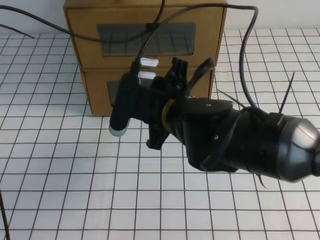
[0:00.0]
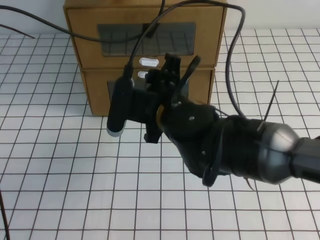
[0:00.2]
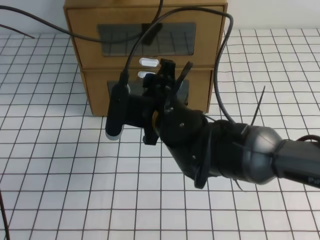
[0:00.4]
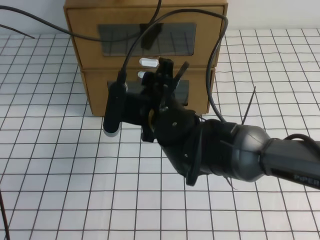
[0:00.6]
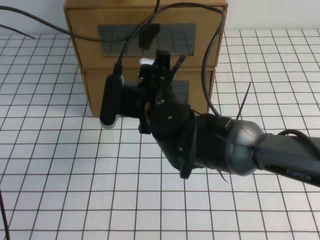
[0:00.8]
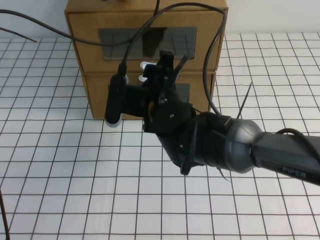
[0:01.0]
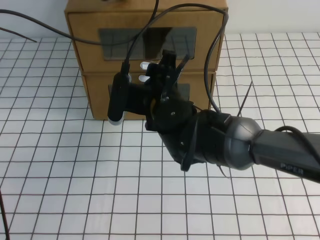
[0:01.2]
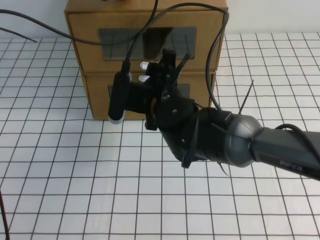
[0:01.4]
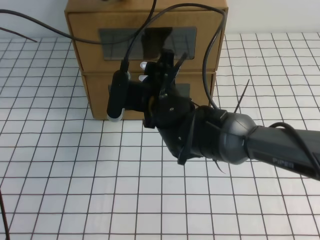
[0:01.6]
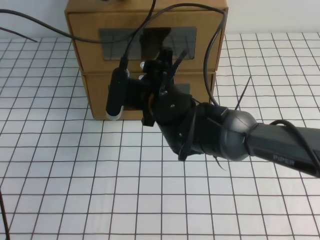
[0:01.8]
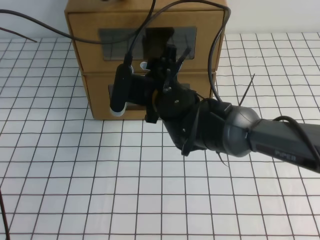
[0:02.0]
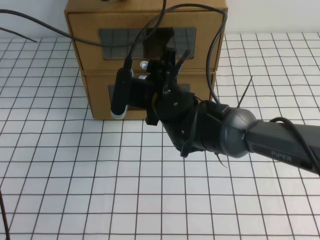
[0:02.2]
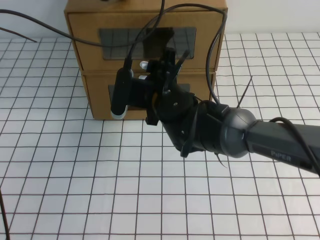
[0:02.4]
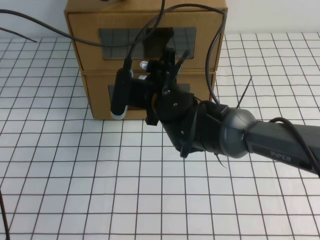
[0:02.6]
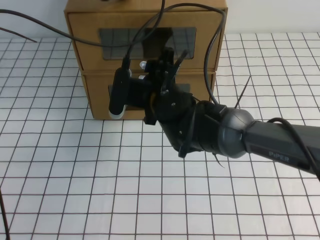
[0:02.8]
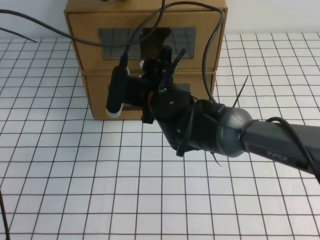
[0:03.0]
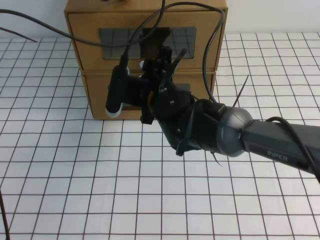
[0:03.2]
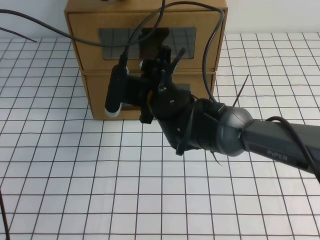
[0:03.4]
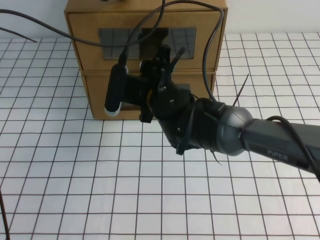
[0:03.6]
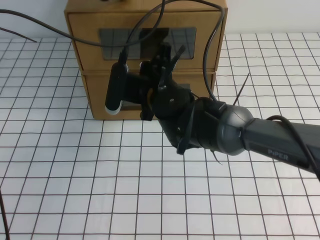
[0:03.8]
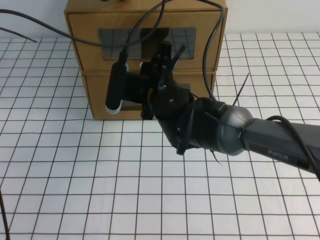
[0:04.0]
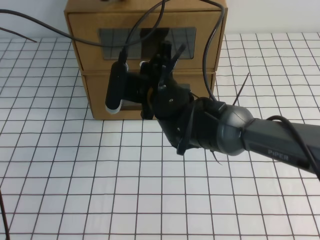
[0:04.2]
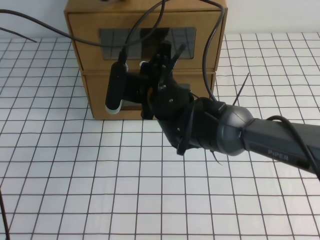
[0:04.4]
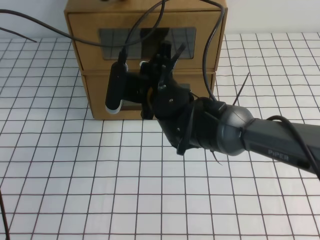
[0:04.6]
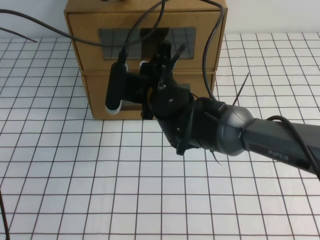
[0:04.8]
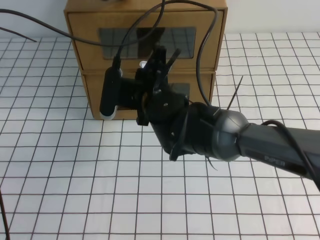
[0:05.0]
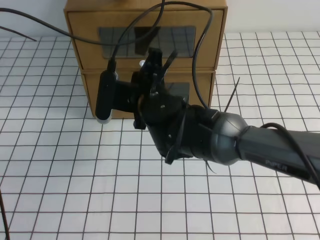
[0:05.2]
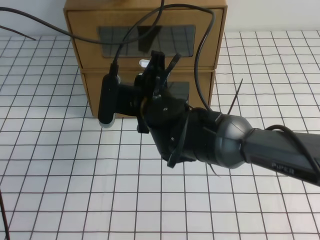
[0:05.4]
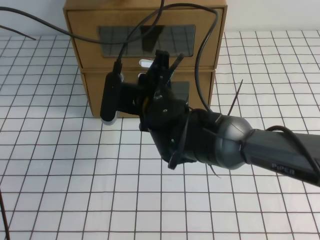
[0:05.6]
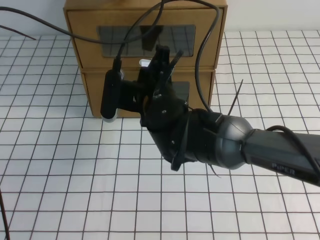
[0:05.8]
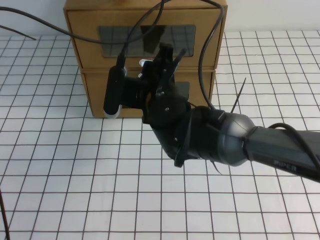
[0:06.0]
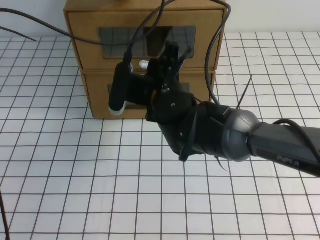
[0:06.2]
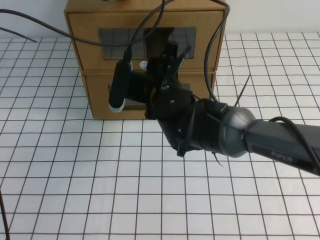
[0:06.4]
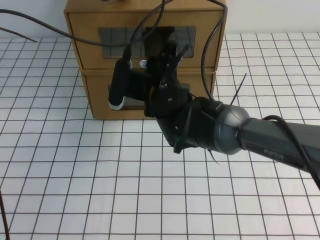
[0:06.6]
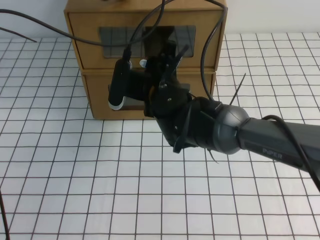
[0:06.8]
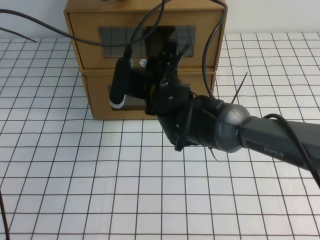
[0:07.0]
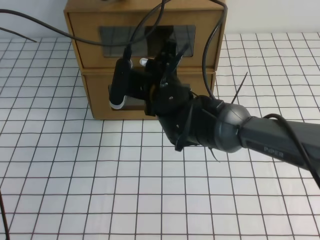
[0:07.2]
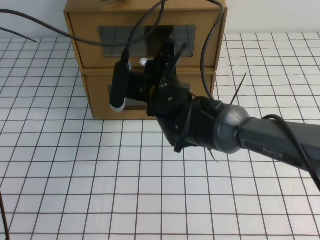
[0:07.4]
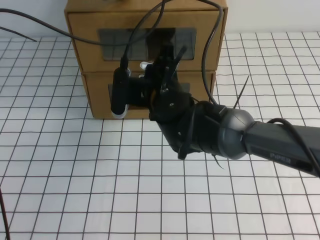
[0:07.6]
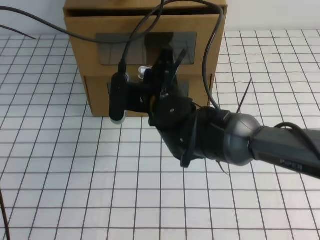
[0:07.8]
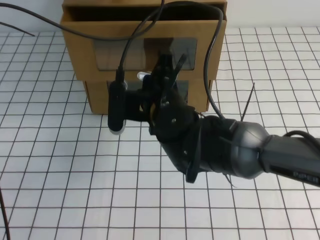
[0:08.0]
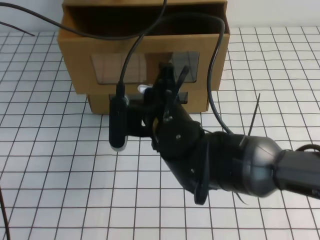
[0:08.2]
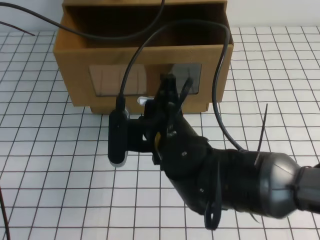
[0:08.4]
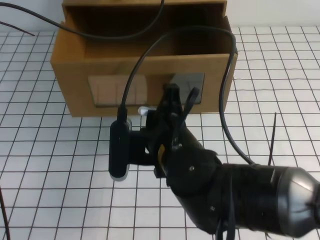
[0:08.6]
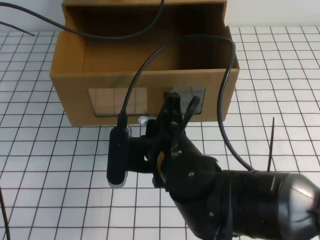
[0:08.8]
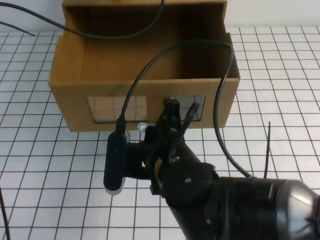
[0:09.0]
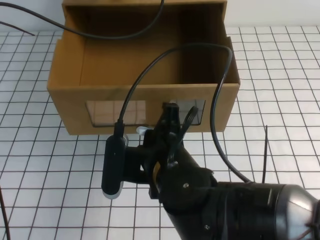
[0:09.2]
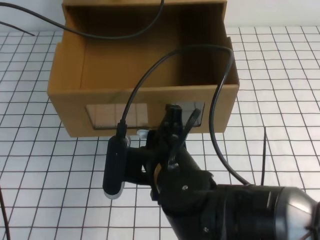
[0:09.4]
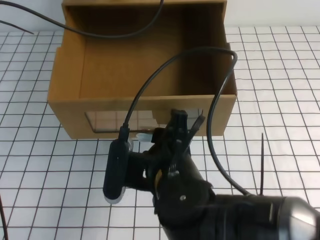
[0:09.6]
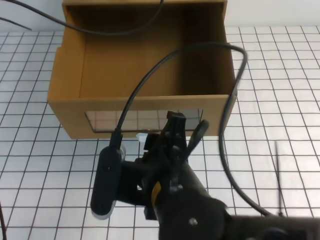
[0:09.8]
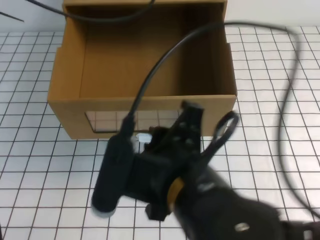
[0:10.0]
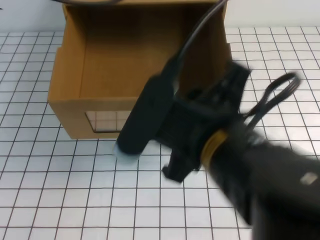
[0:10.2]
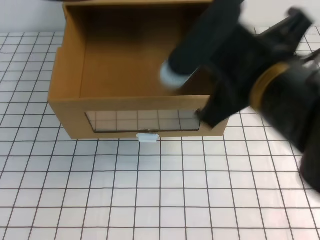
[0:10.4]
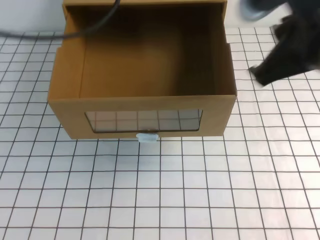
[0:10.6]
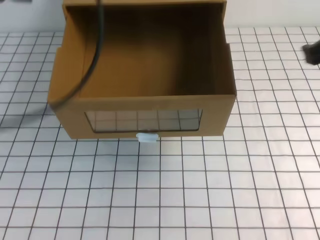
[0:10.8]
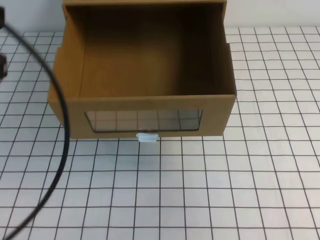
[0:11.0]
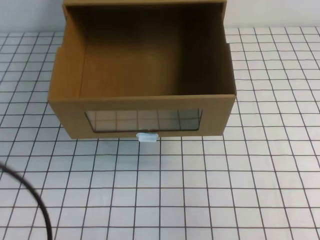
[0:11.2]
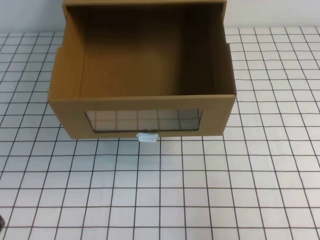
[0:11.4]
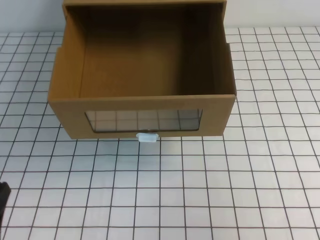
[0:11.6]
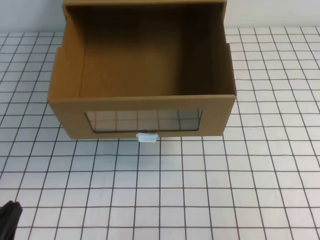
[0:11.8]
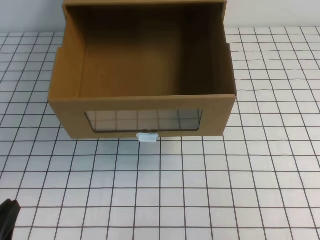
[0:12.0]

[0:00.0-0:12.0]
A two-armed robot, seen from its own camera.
Task of the whole recording: open the shoebox on the white tablecloth.
0:00.0 to 0:01.6: The right gripper is displaced forward by about 5 cm, and opens its fingers.
0:01.6 to 0:03.0: The grippers stay close to where they were, moving slightly.
0:03.0 to 0:04.4: The right gripper closes up.
0:04.4 to 0:06.0: The right gripper opens up.
0:06.0 to 0:07.6: The right gripper closes.
0:07.6 to 0:09.0: The right gripper is displaced backward by some 15 cm.
0:09.0 to 0:10.4: The right gripper is displaced upward and to the right by some 15 cm, and opens, then closes again. Meanwhile the left gripper travels upward and backward by about 15 cm.
0:10.4 to 0:12.0: The left gripper shifts some 40 cm downward and backward. The right gripper heads to the right and downward, covering some 20 cm.

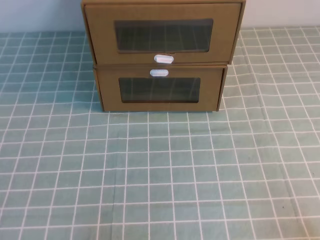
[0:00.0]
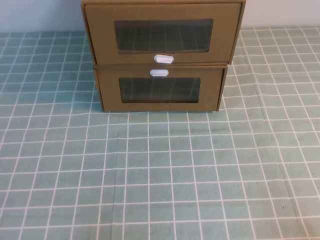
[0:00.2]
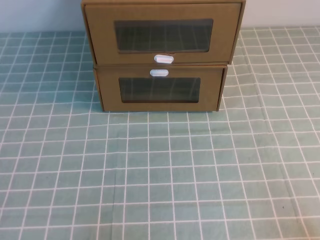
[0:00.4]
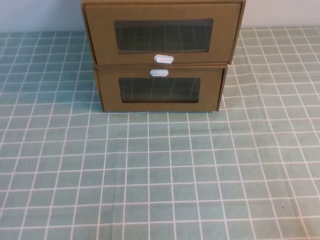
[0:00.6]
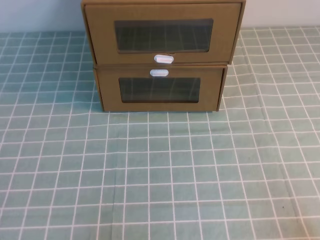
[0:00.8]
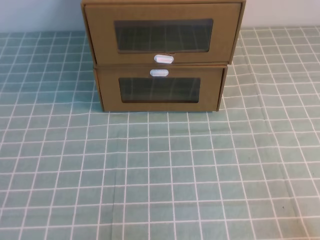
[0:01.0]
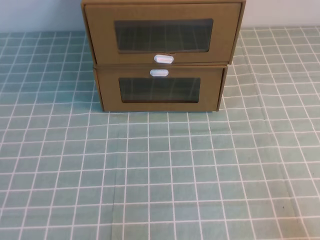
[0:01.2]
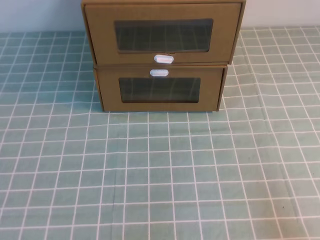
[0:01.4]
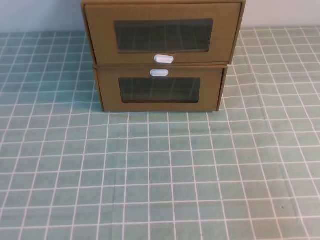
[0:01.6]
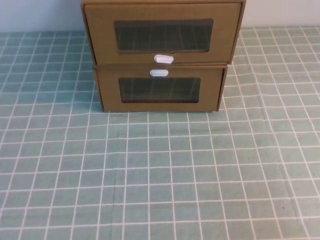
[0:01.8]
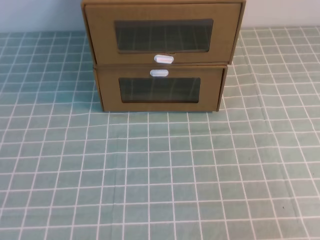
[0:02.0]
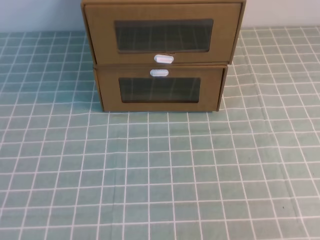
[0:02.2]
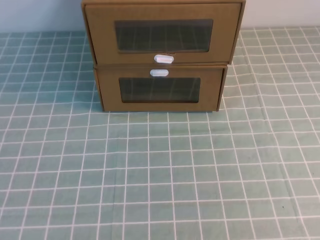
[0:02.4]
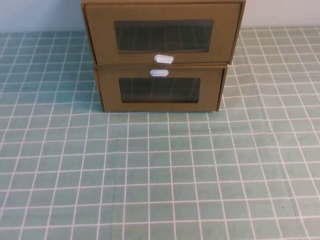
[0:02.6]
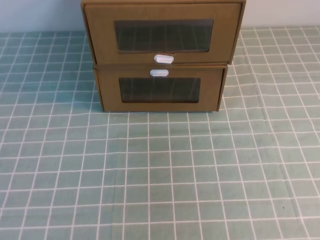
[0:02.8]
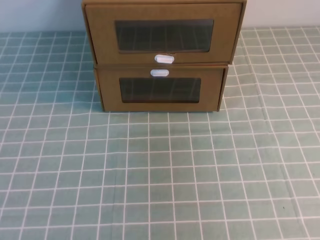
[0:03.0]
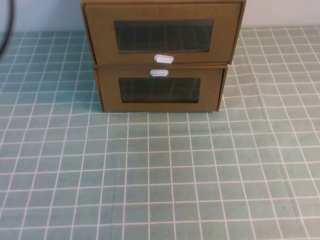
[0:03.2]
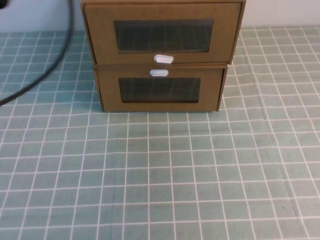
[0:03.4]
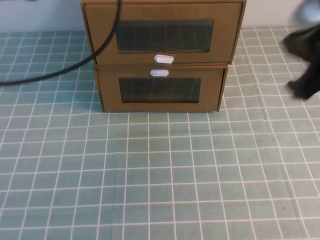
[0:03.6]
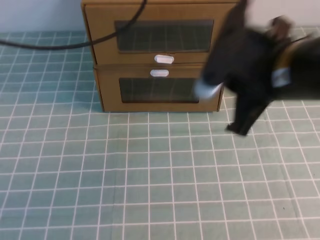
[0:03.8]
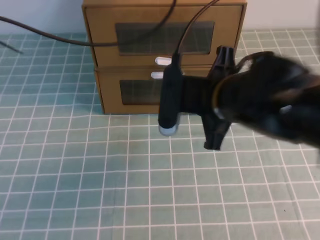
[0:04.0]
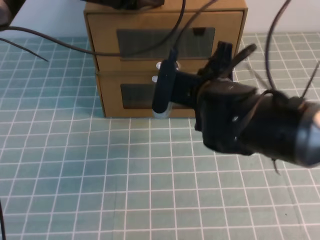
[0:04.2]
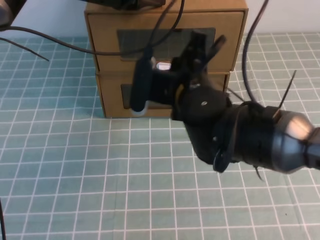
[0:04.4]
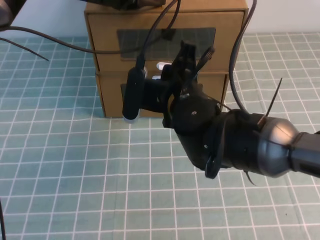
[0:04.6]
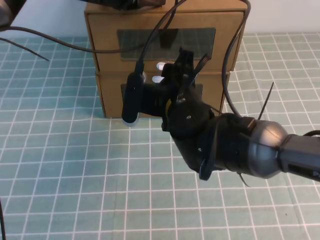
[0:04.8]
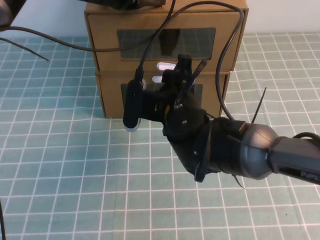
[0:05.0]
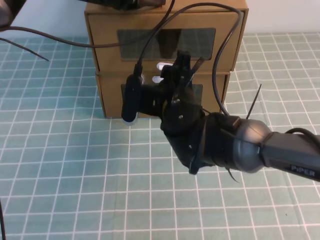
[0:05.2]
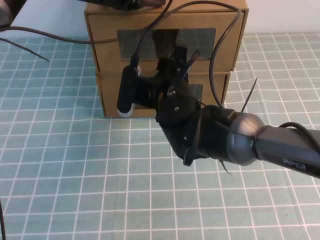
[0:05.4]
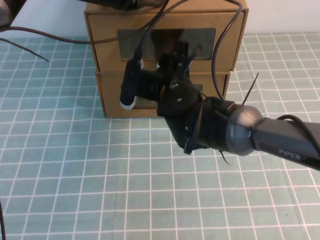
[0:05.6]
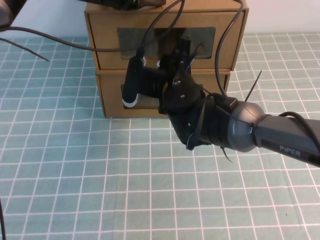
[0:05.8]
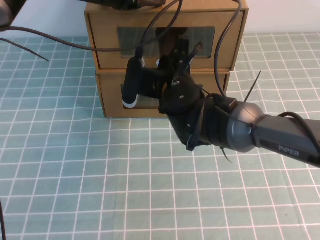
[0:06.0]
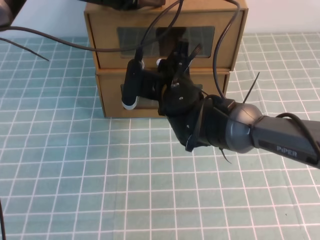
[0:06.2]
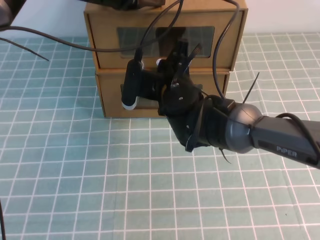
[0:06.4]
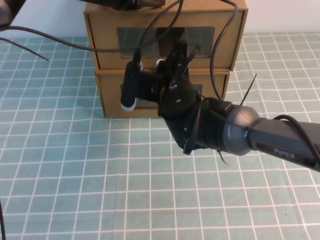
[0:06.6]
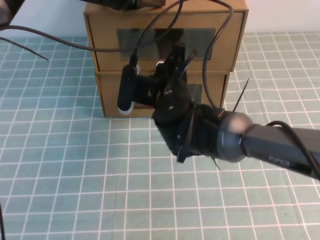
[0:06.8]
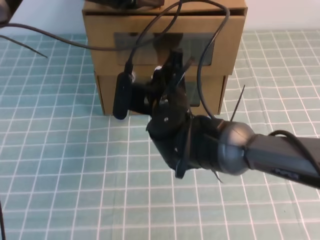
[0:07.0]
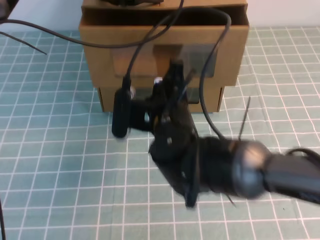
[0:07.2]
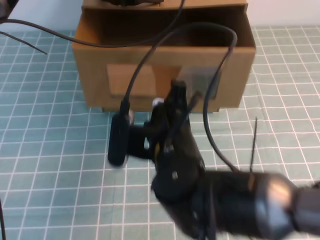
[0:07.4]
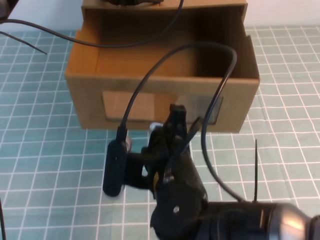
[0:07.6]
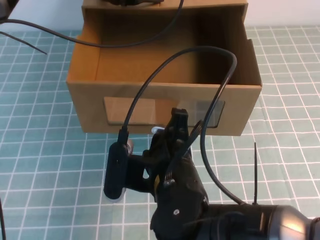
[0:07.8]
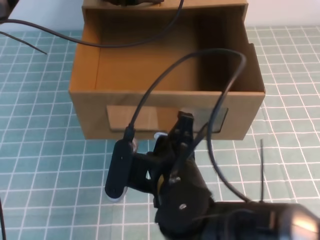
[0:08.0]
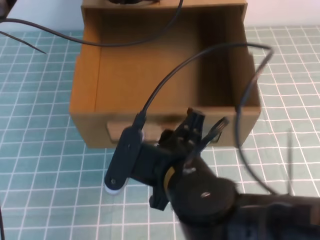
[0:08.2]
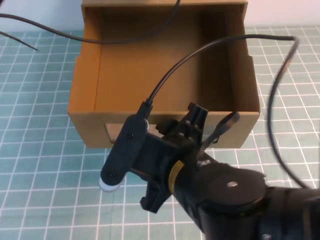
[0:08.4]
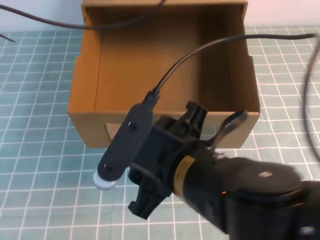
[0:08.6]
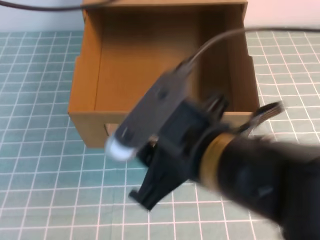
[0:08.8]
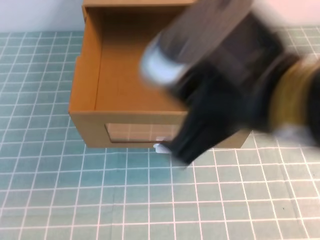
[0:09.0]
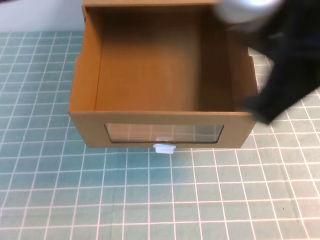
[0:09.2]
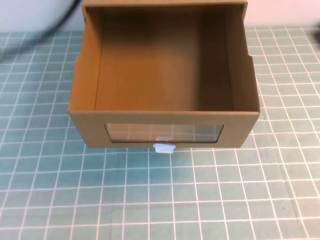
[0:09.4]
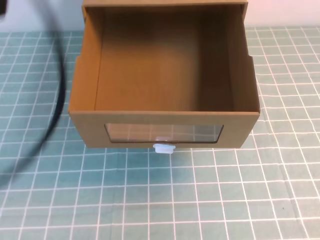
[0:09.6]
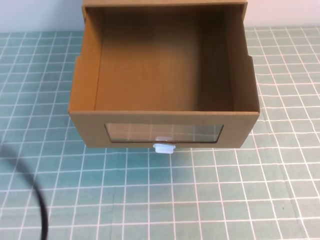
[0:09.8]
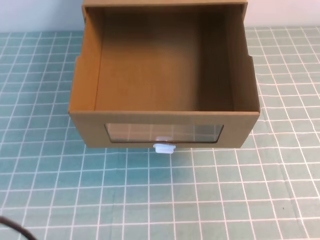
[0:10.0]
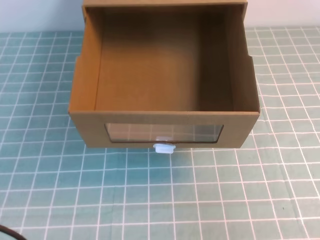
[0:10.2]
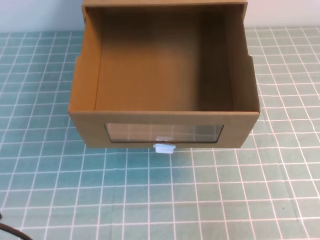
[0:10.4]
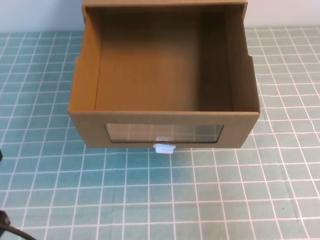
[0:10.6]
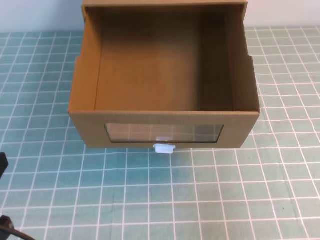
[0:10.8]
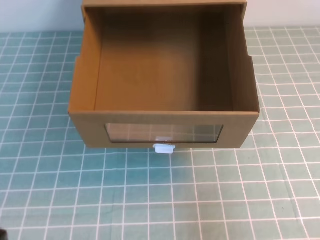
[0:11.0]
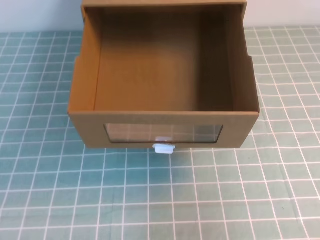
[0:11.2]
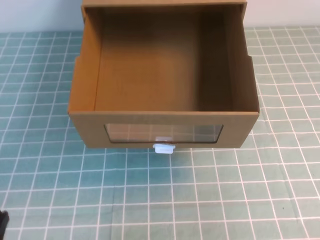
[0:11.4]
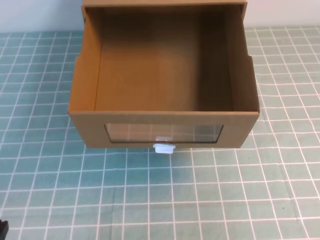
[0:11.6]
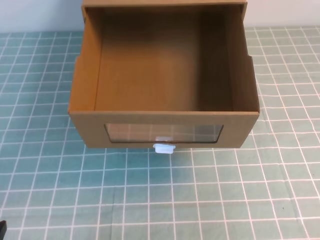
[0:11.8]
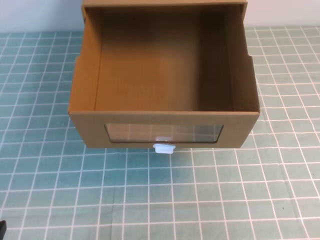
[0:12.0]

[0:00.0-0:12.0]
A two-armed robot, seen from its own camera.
Task of the whole recording: open the shoebox on the cyan tablecloth.
0:03.0 to 0:04.4: The left gripper is displaced forward, to the right and downward by approximately 35 cm. Meanwhile the right gripper moves to the left, downward and forward, roughly 40 cm.
0:04.4 to 0:06.0: The right gripper goes approximately 5 cm forward, and opens and closes again.
0:06.0 to 0:07.6: The right gripper goes some 15 cm backward.
0:07.6 to 0:09.0: The left gripper shifts some 25 cm upward, backward and to the left. The right gripper is displaced upward and to the right by some 20 cm, and opens.
0:09.0 to 0:10.4: The right gripper goes roughly 20 cm to the right and downward, and closes its fingers. Meanwhile the left gripper moves downward, backward and to the left, some 30 cm.
